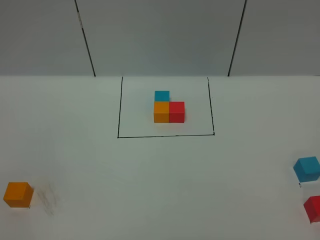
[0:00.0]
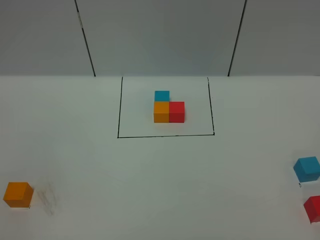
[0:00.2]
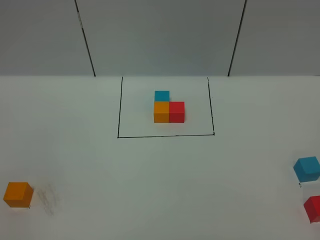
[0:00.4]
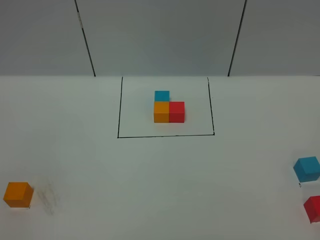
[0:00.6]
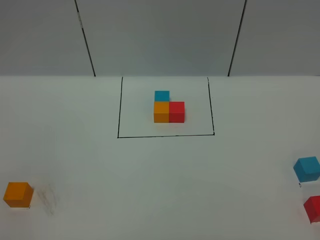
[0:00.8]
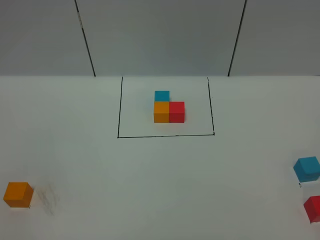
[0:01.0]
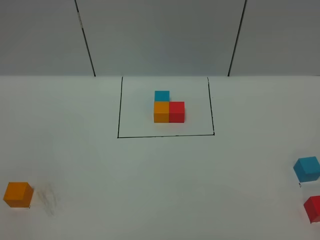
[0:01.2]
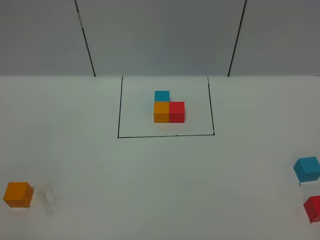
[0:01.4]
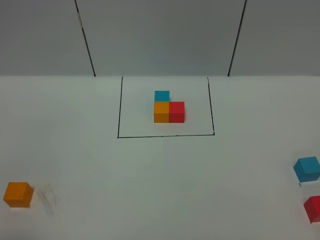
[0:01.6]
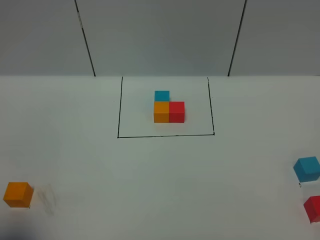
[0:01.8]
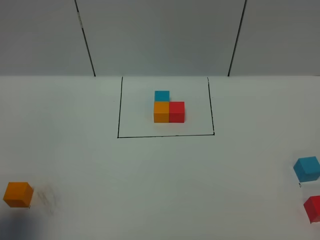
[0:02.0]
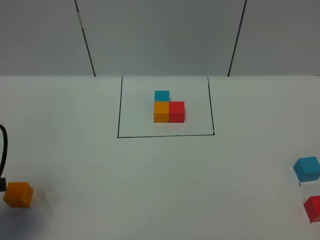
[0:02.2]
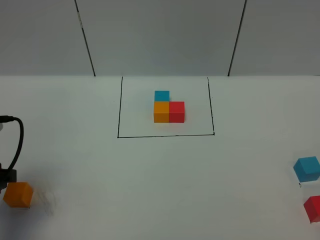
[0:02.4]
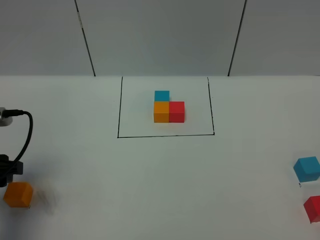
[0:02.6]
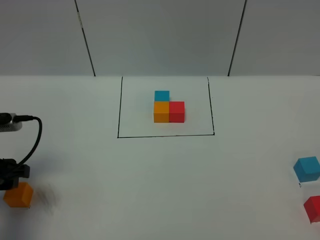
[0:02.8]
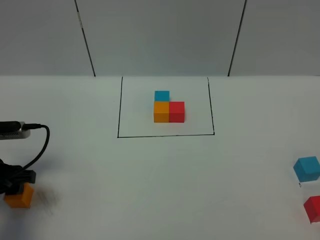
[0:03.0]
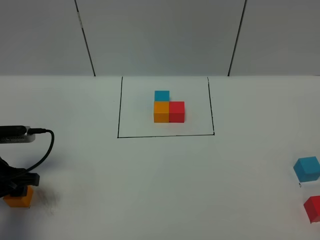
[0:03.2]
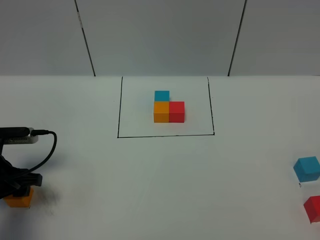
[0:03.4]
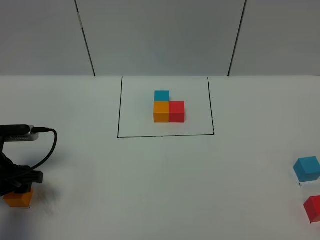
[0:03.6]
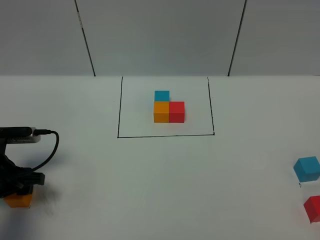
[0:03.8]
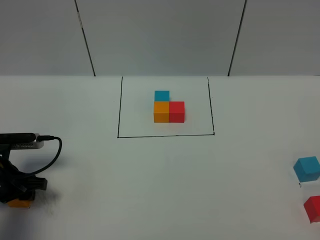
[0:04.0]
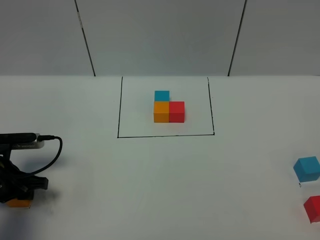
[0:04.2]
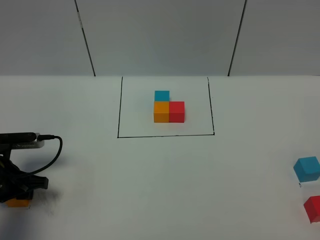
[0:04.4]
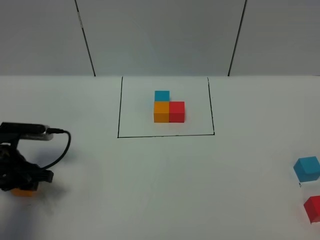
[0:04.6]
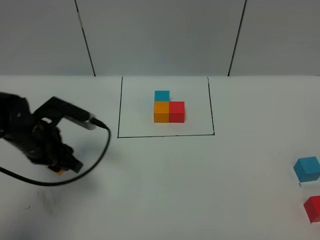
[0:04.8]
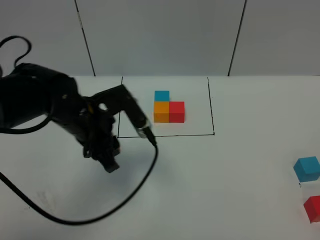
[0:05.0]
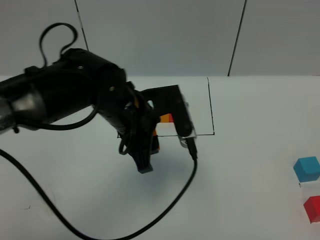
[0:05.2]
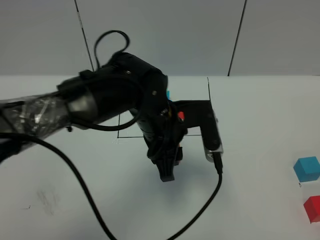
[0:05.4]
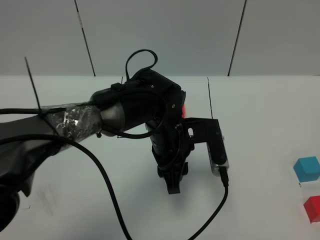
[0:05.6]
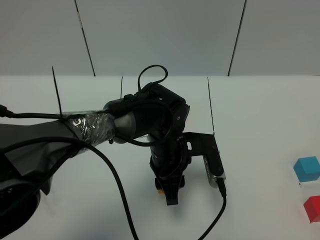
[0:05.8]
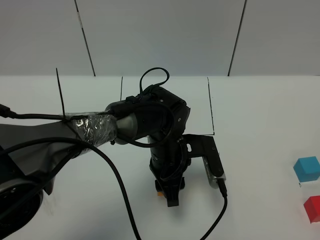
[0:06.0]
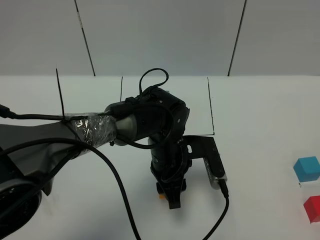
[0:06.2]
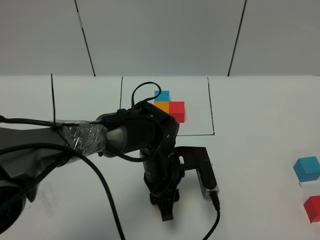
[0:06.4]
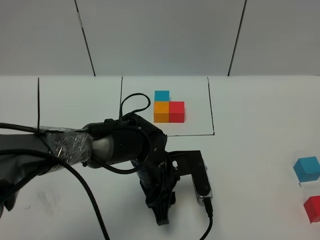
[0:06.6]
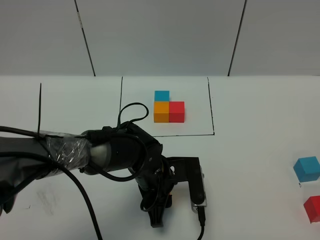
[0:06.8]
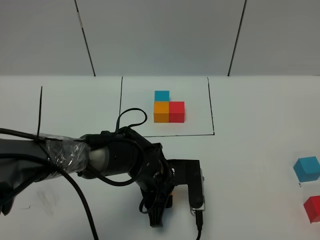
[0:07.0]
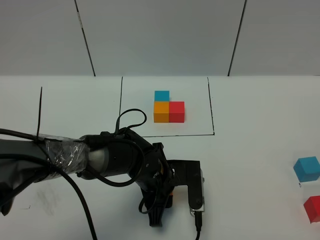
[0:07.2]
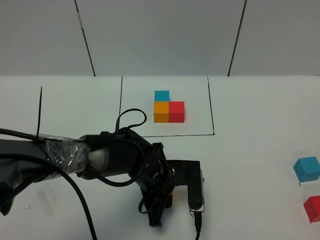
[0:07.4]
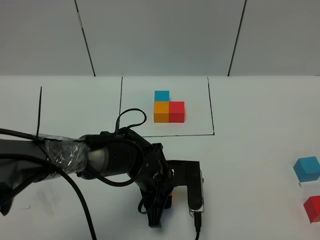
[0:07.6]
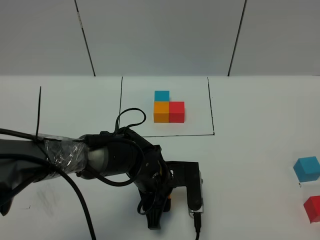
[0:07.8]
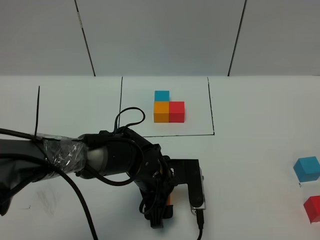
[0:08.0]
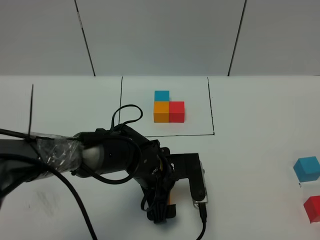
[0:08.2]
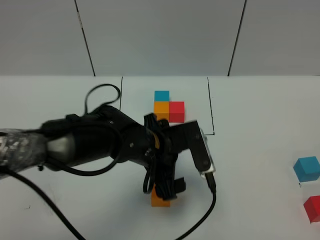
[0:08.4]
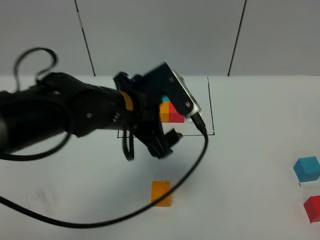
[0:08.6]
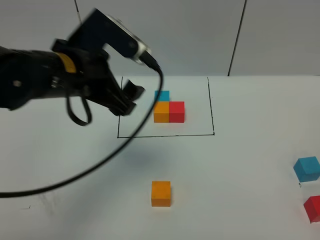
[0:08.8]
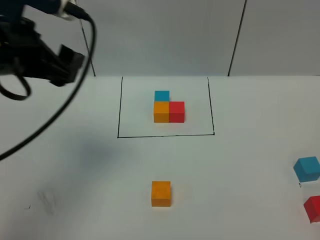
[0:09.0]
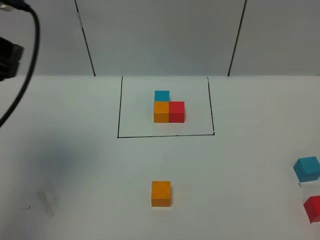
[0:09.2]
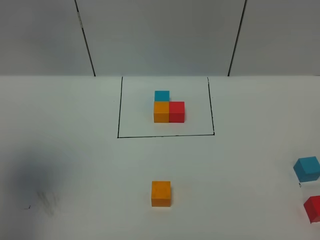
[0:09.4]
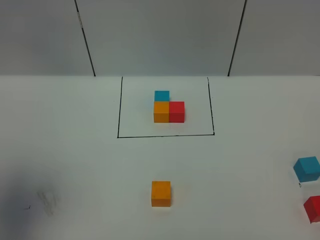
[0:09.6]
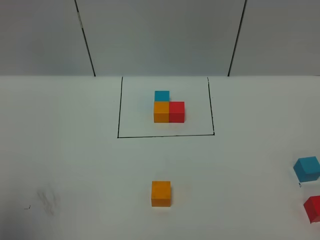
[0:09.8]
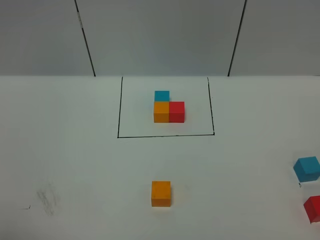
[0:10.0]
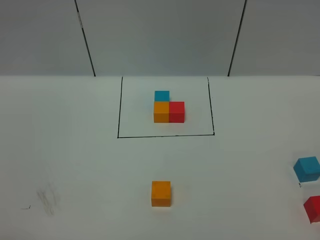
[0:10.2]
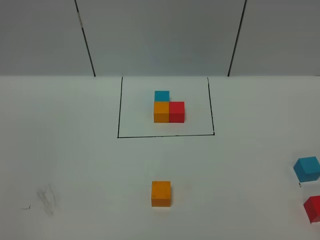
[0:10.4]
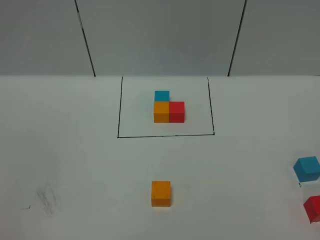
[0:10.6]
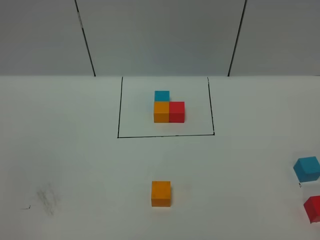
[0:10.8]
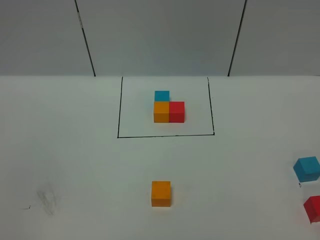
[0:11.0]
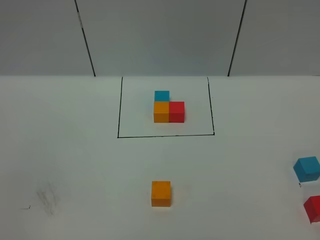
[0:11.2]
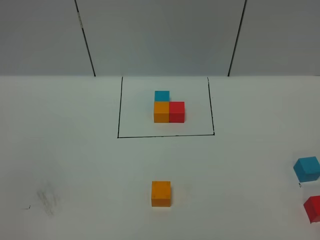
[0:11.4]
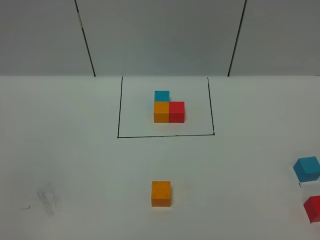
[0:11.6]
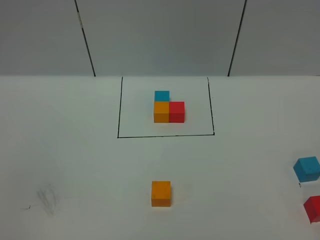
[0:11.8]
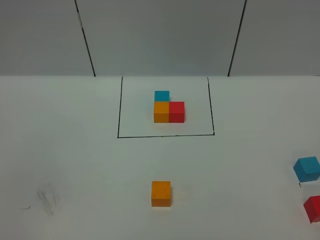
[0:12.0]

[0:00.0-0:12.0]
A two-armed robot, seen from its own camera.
Task of the whole recording: According to the building block template in front, assemble the scattered blocks together.
Step, 0:02.2 to 0:08.4: Put the orange cube in the center of the table.
0:01.6 to 0:03.0: The left gripper heads forward and downward, covering about 25 cm.
0:03.0 to 0:04.4: The left gripper moves downward, roughly 5 cm, and closes.
0:04.4 to 0:06.0: The left gripper moves to the right, about 30 cm.
0:06.0 to 0:07.6: The left gripper moves about 5 cm.
0:07.6 to 0:09.0: The left gripper is displaced upward and to the left by about 35 cm, and opens.
0:09.0 to 0:10.4: The left gripper shifts roughly 30 cm backward.

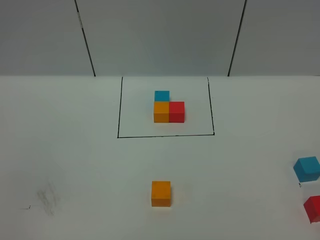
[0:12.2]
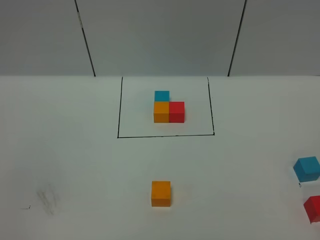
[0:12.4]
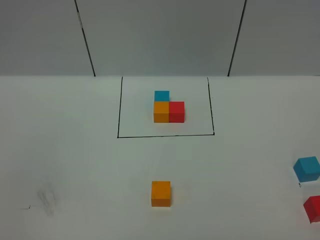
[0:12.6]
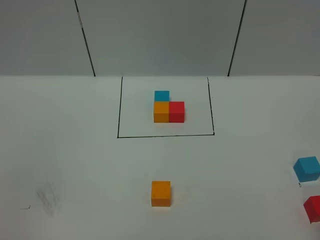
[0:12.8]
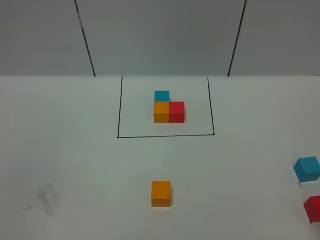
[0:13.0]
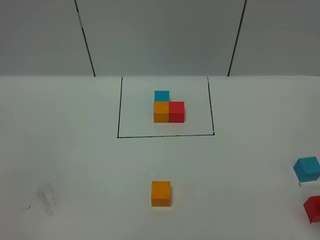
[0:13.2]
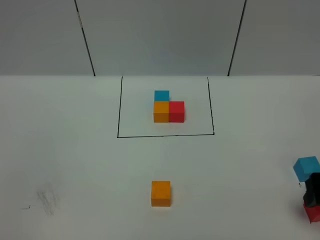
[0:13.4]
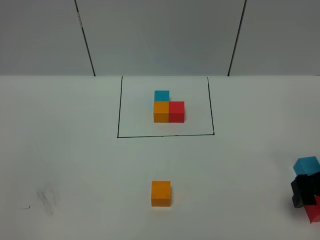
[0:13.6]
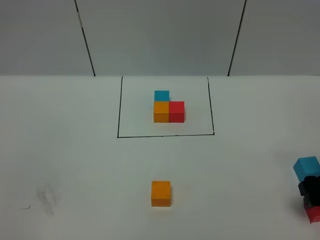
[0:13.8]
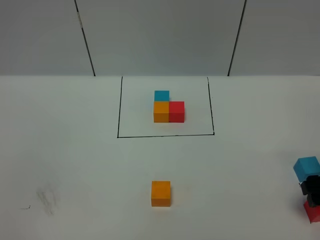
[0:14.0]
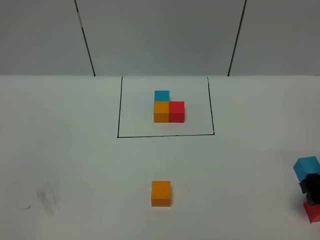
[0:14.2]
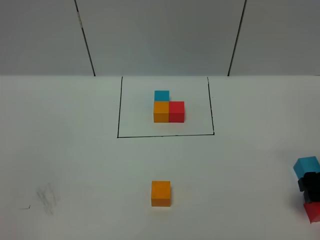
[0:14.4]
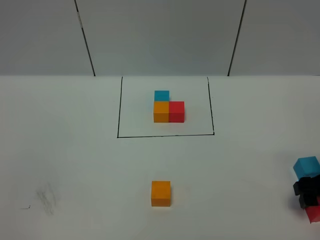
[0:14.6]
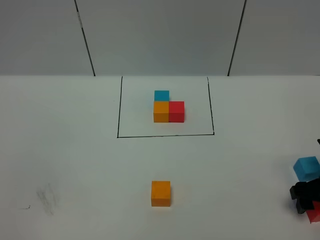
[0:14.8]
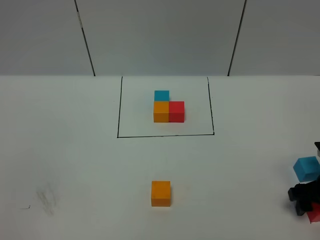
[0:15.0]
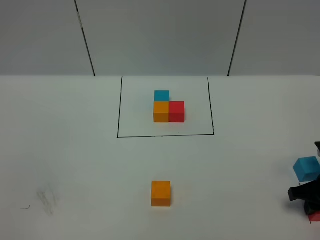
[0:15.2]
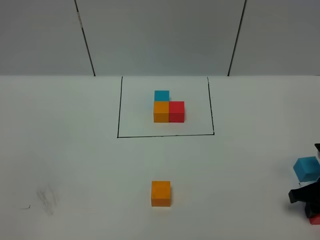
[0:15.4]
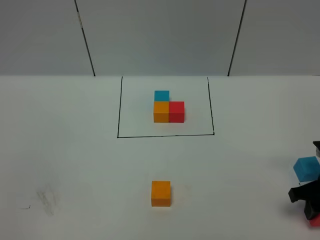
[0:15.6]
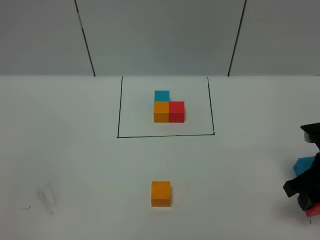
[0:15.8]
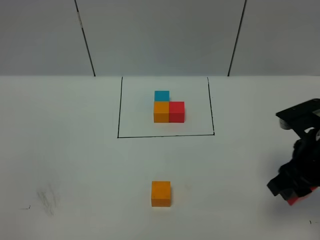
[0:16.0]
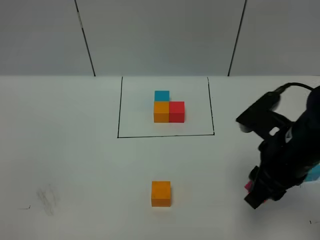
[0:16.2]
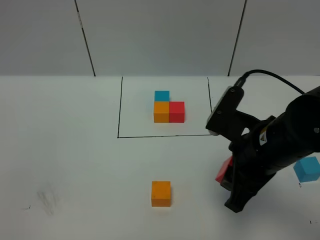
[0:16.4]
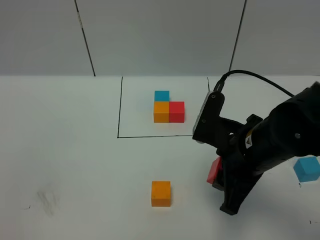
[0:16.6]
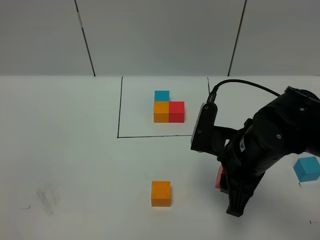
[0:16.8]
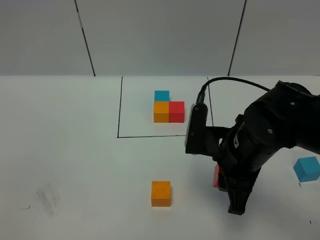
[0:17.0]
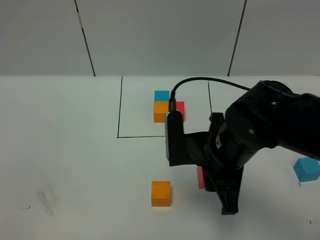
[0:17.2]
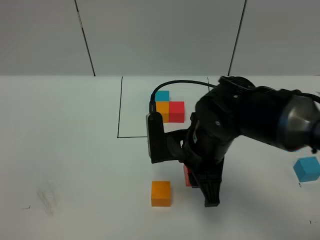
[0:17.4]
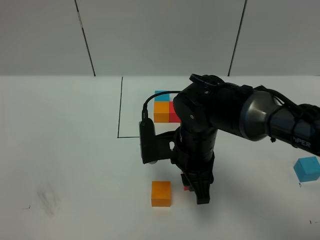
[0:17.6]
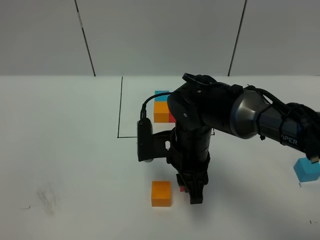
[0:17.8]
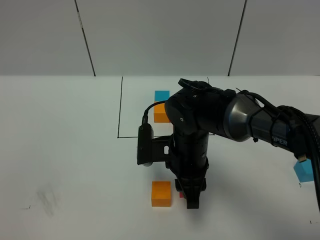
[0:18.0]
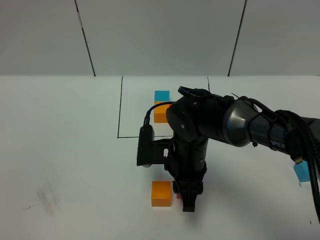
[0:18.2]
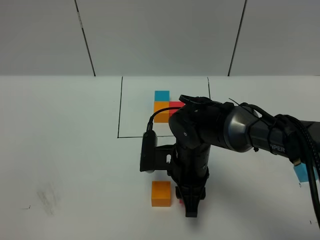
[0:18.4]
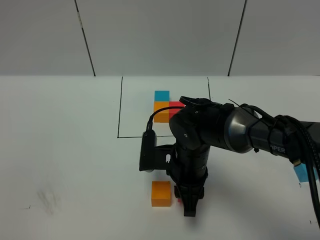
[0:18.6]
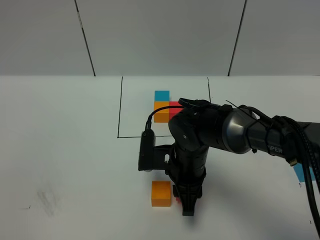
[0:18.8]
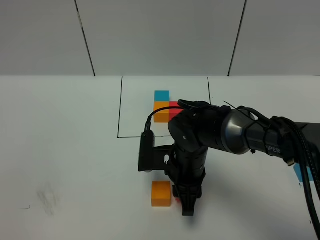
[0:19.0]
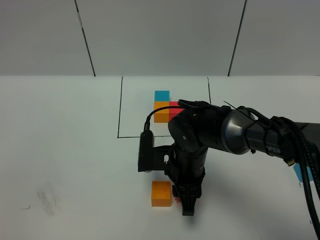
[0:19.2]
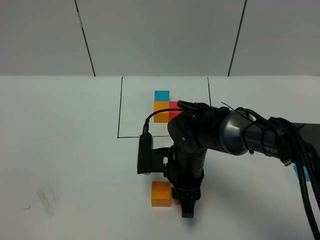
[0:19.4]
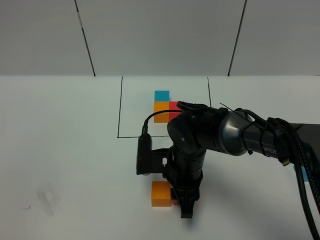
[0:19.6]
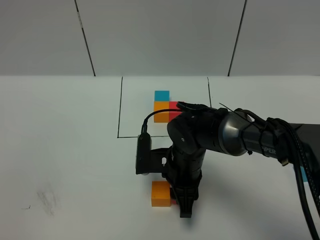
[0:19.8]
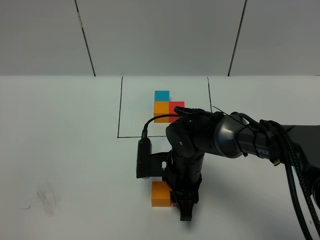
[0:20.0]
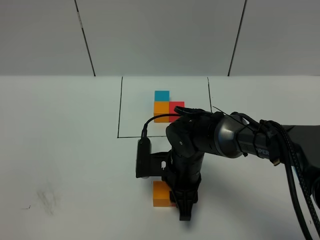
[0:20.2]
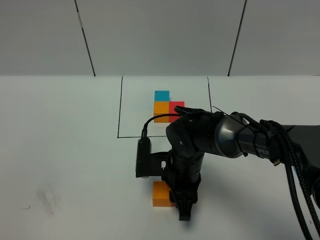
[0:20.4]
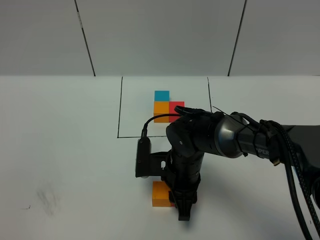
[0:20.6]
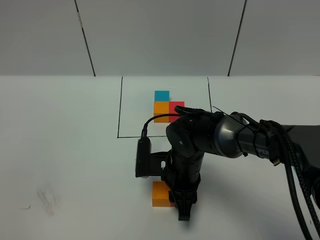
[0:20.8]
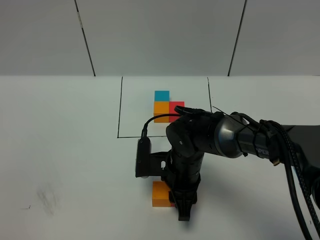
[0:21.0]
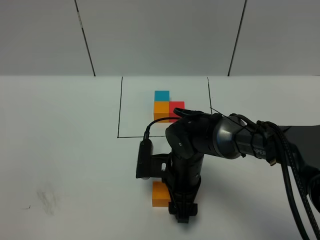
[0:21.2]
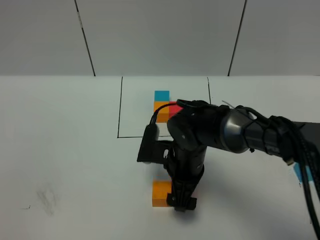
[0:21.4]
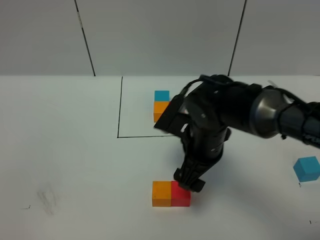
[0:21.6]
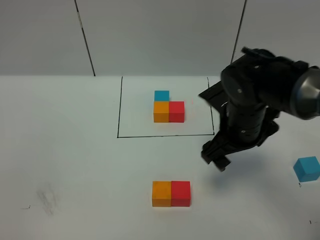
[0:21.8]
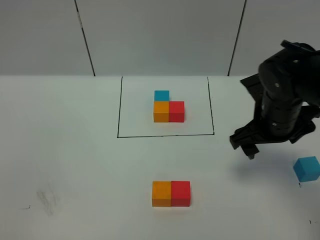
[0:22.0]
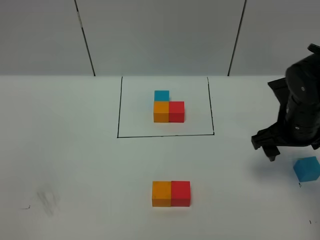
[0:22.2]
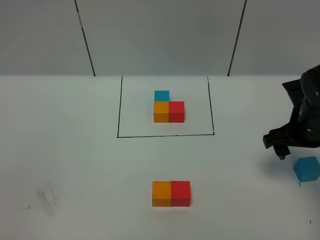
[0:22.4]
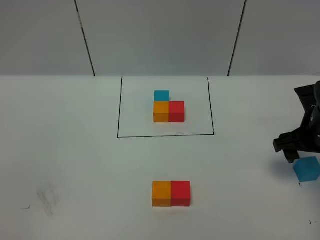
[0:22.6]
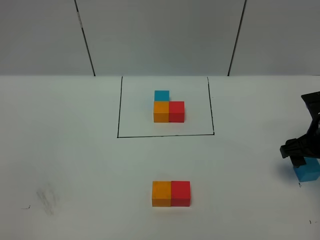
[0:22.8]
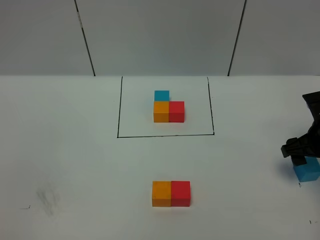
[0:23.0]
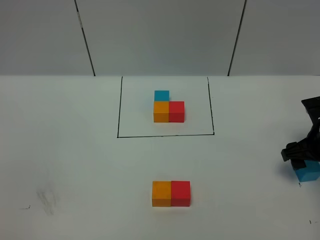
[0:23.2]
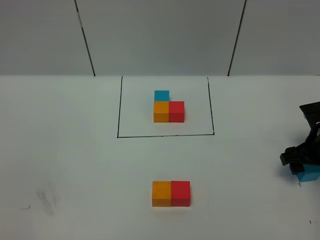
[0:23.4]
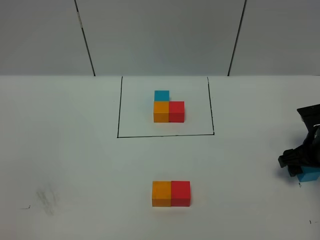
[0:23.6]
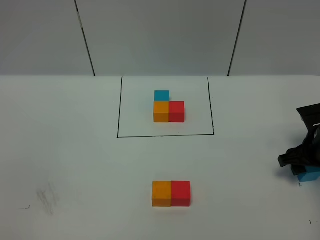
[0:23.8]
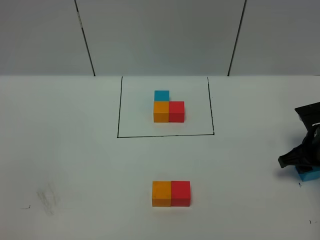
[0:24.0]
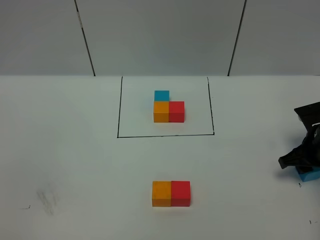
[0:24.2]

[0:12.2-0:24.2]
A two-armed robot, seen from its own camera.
Task of the whole recording: According to the building block template in front, assemble the scattered blocks together.
Step, 0:12.2 to 0:21.4: Put the red cube on the right of the orange cube.
0:12.2 to 0:13.8: The right gripper travels forward and downward by roughly 30 cm.
0:15.2 to 0:16.6: The right gripper goes some 25 cm to the left and upward.
0:16.6 to 0:18.2: The right gripper moves to the left, downward and forward, roughly 15 cm.
0:18.2 to 0:19.8: The grippers make only small movements.
0:19.8 to 0:21.2: The right gripper opens up.
0:21.2 to 0:22.6: The right gripper heads to the right, covering about 25 cm.
0:22.6 to 0:24.2: The right gripper is displaced downward by roughly 5 cm, and closes up.
